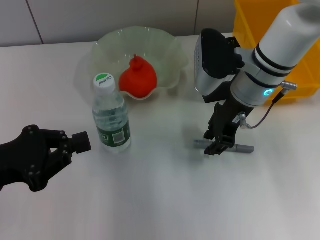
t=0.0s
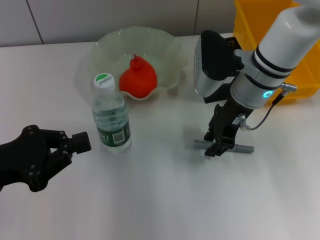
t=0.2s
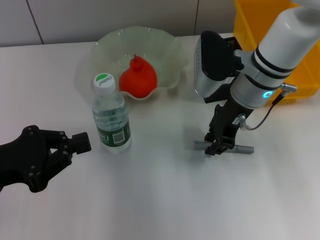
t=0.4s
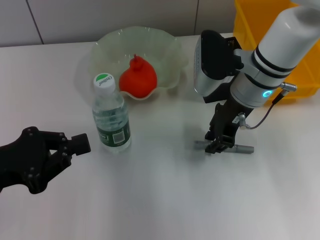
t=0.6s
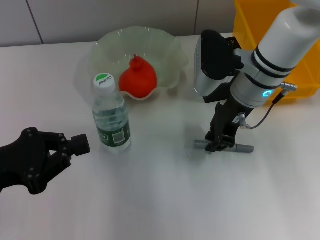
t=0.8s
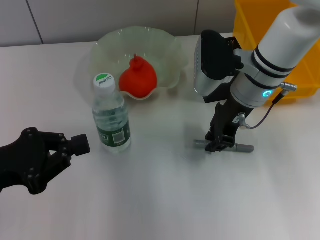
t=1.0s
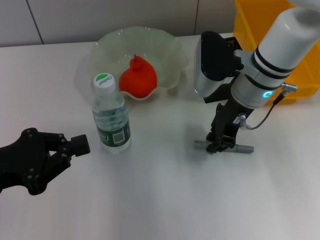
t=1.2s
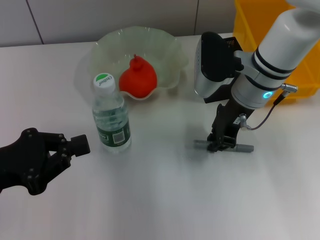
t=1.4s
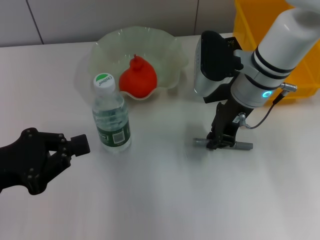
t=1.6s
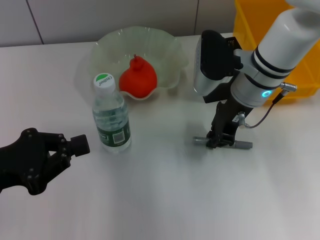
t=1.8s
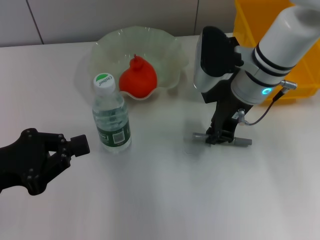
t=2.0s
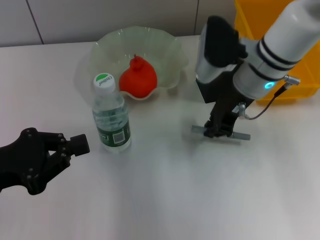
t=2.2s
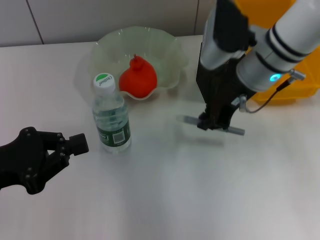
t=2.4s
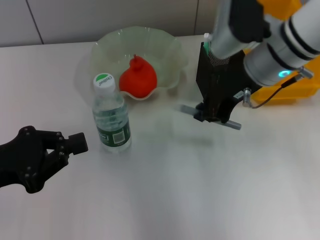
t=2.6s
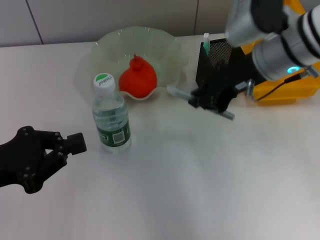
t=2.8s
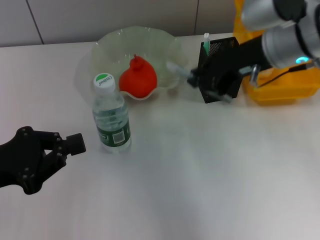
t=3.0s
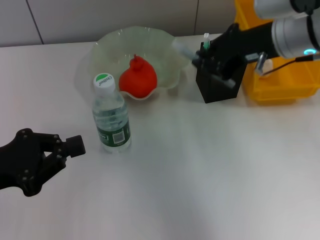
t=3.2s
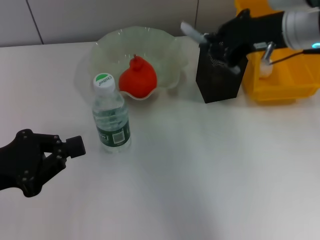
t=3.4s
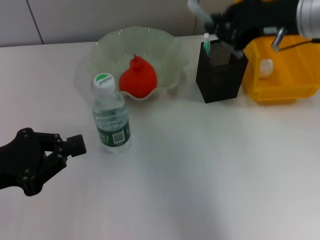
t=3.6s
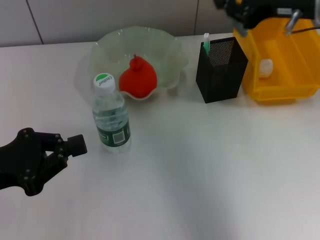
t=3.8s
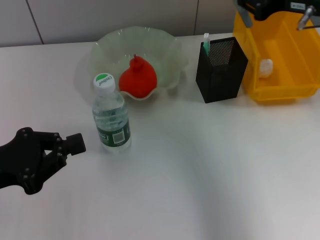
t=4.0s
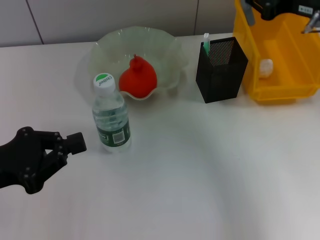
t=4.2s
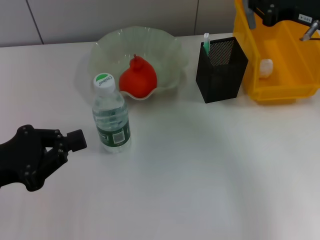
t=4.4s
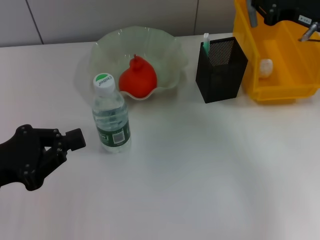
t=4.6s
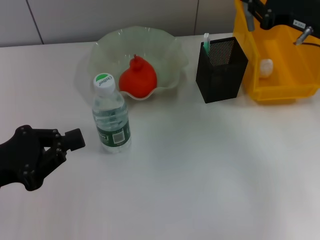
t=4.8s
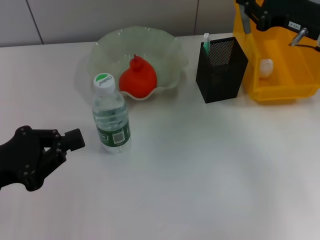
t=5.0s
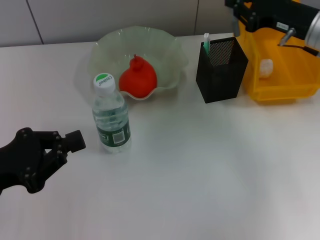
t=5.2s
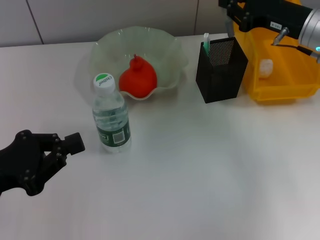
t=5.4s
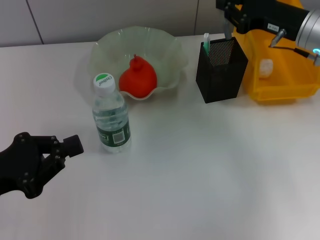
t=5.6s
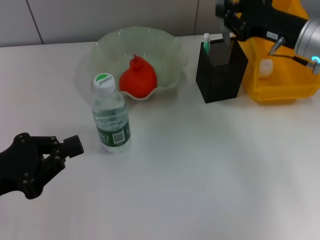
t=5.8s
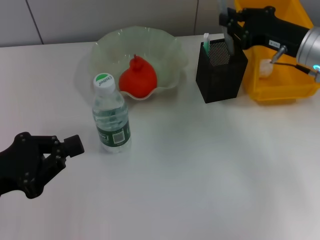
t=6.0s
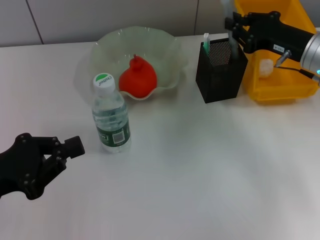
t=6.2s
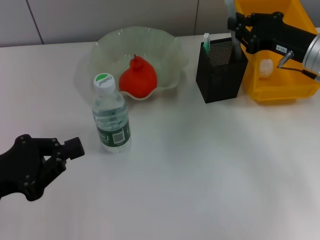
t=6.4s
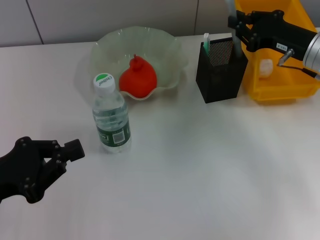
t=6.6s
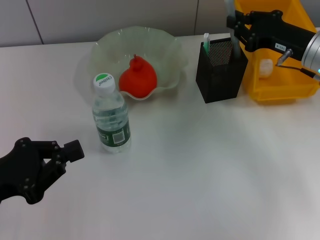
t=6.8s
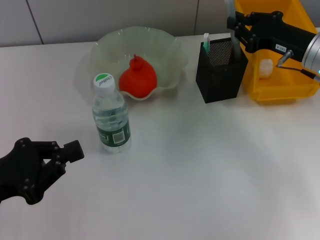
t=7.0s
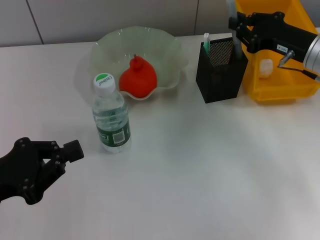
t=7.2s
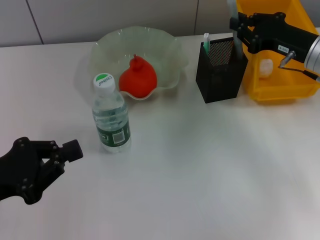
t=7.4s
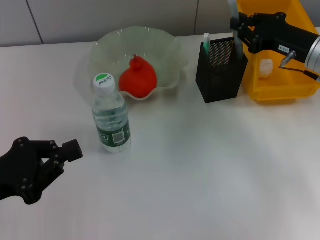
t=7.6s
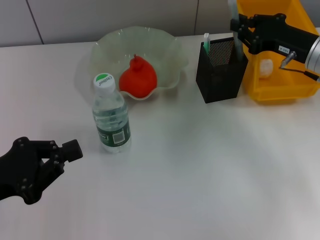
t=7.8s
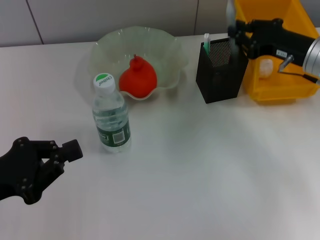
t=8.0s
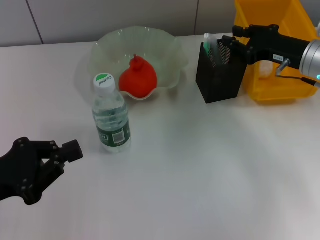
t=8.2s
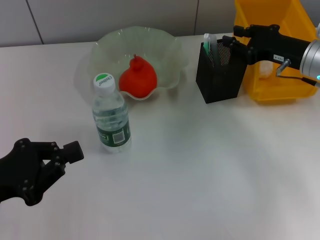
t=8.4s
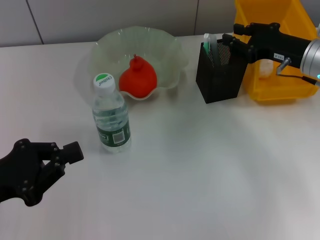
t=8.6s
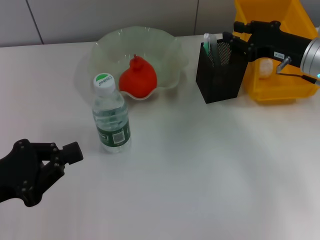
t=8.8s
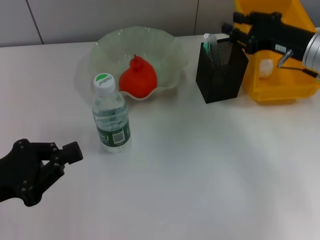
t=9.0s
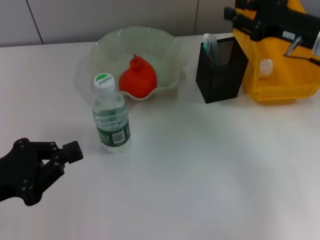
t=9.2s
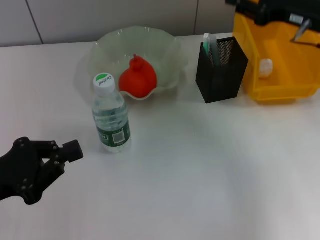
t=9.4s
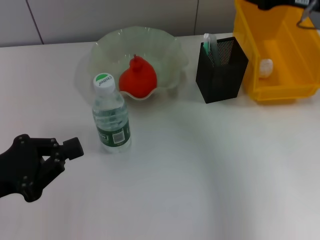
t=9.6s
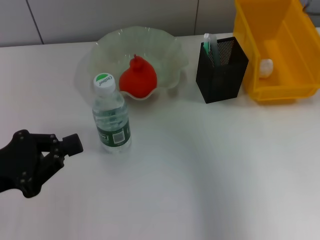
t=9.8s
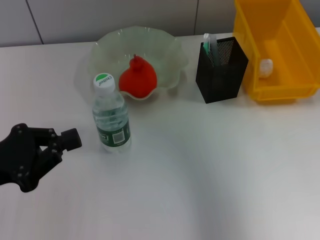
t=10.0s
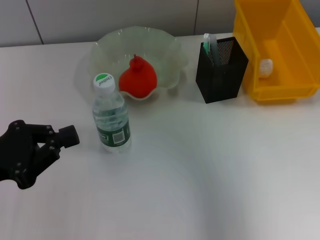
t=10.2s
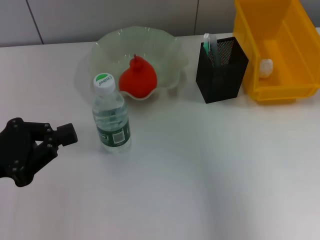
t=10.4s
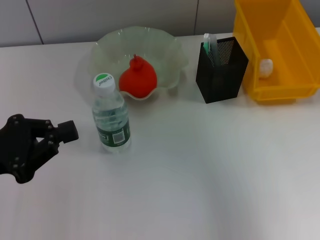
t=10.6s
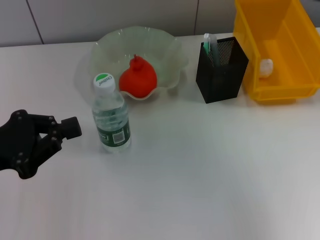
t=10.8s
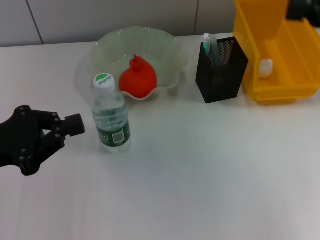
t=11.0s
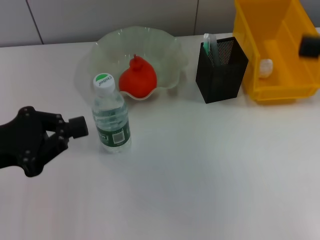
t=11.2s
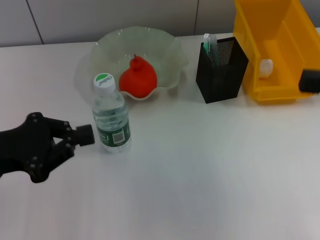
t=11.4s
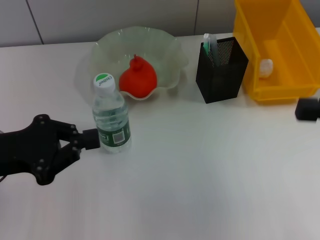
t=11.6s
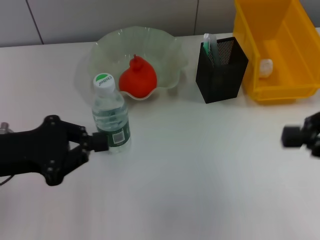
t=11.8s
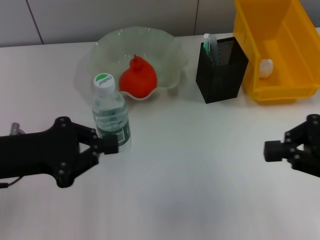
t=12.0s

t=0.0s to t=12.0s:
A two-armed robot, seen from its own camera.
Step, t=2.0s to t=8.2s: Place the gray glue into the pen holder with the right hand.
t=0.0s to t=1.6s: The two grippers keep their place.
t=1.6s to t=3.0s: The right gripper heads upward, covering some 10 cm.
t=3.0s to t=4.4s: The right gripper heads to the right, covering some 10 cm.
t=4.4s to t=6.0s: The right gripper is displaced downward by roughly 5 cm.
t=6.0s to t=9.0s: The grippers move only a little.
t=9.0s to t=10.4s: The right gripper travels upward by about 15 cm.
t=10.4s to t=12.0s: The right gripper goes some 20 cm downward and backward, and closes up.

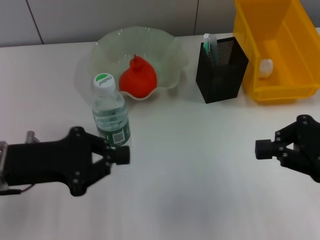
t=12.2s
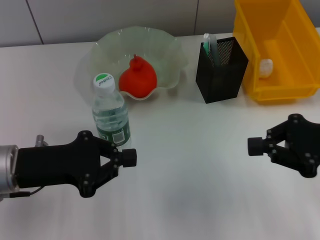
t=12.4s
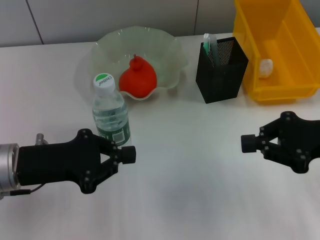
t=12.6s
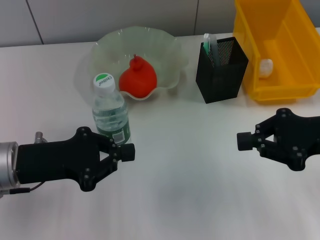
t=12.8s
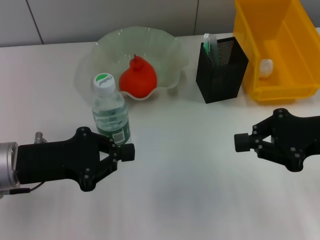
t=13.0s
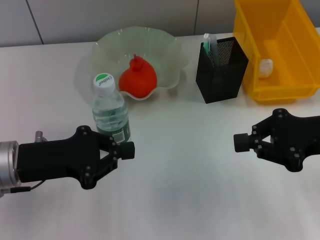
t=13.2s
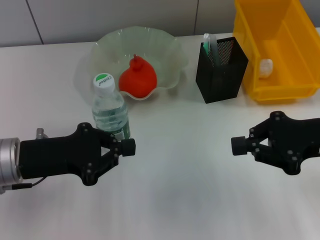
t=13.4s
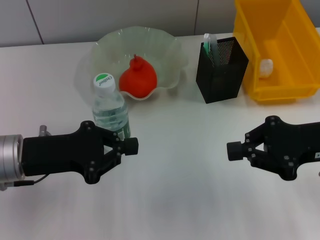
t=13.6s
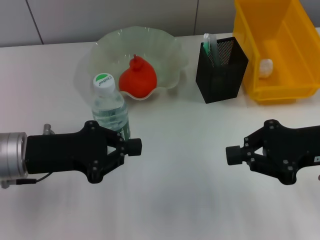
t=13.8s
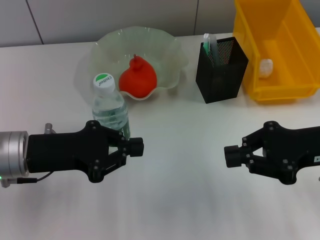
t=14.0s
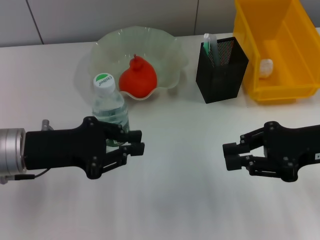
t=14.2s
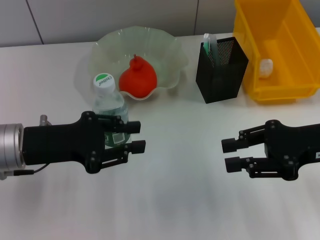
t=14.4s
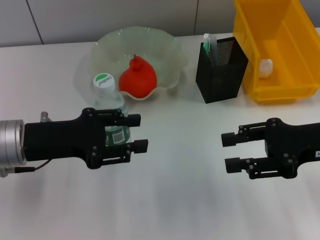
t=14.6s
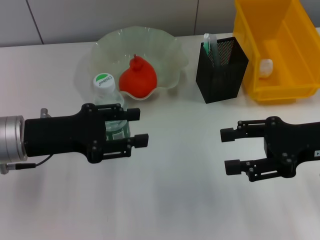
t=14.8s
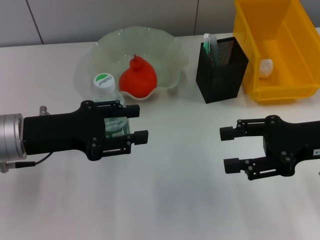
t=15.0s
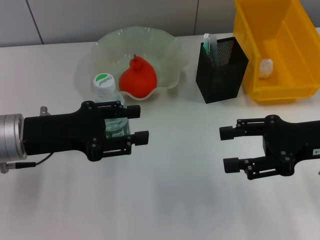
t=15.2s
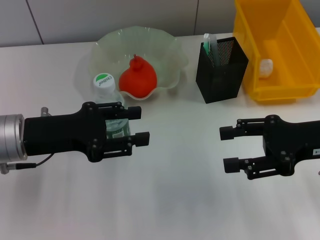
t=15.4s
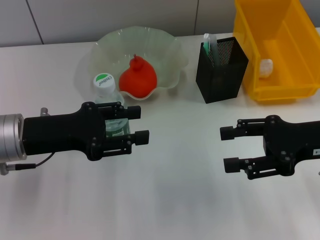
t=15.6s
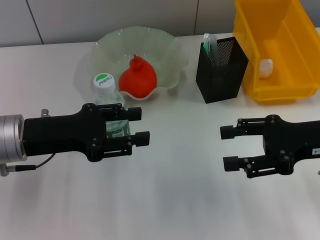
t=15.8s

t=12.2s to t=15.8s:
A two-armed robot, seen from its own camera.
t=12.2s to t=14.0s: The grippers make only small movements.
t=14.0s to t=15.8s: The left gripper opens, while the right gripper opens.
